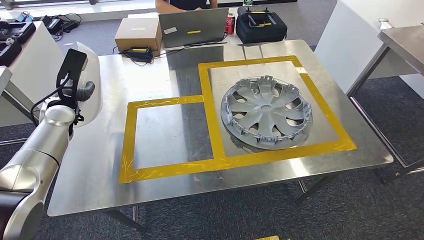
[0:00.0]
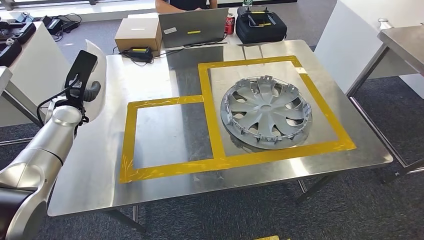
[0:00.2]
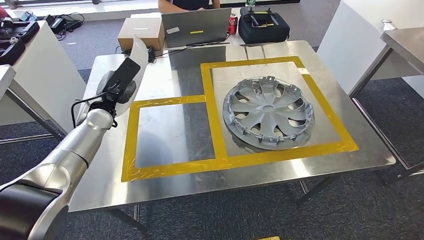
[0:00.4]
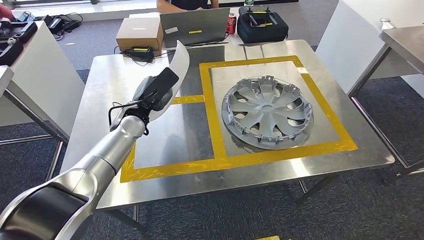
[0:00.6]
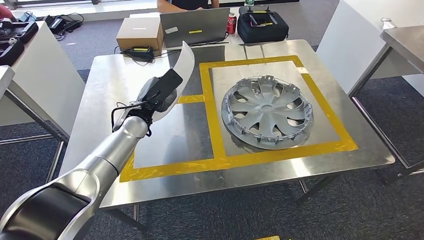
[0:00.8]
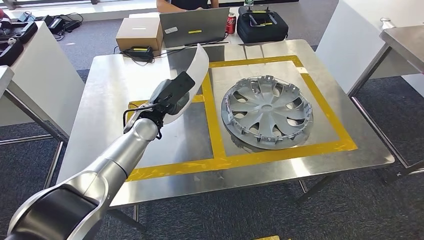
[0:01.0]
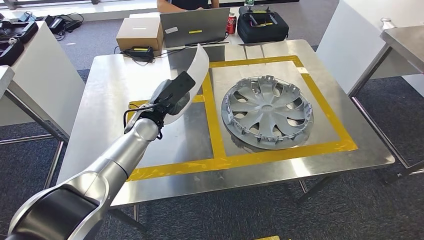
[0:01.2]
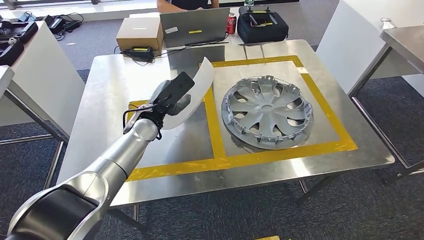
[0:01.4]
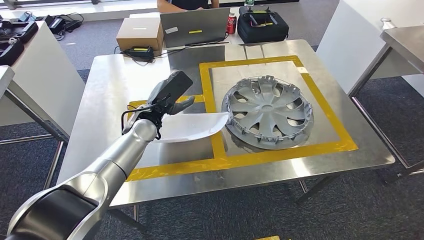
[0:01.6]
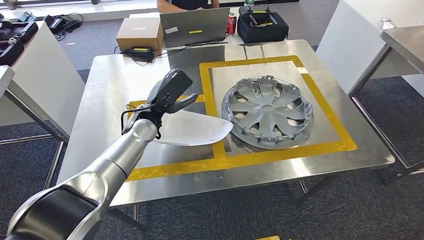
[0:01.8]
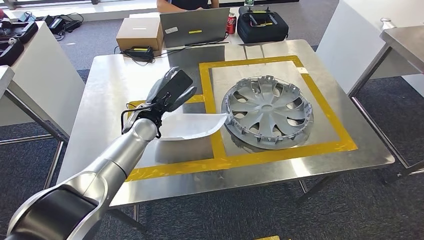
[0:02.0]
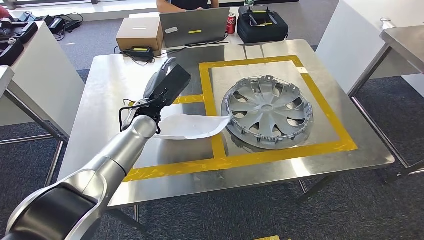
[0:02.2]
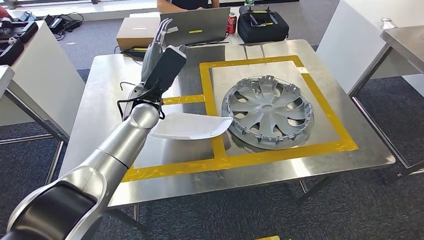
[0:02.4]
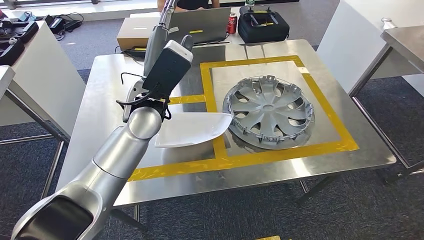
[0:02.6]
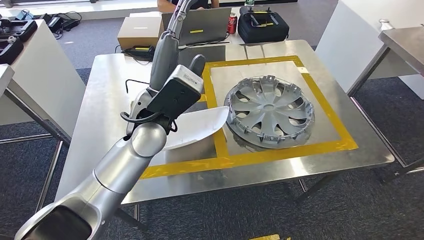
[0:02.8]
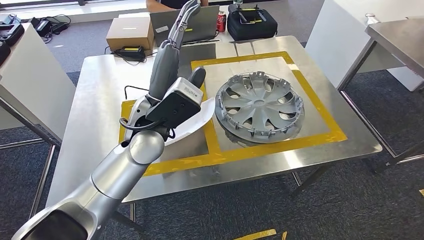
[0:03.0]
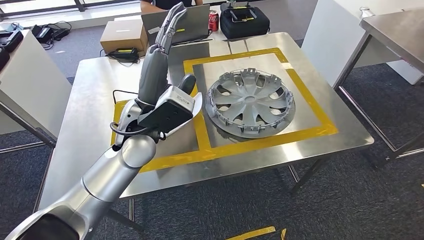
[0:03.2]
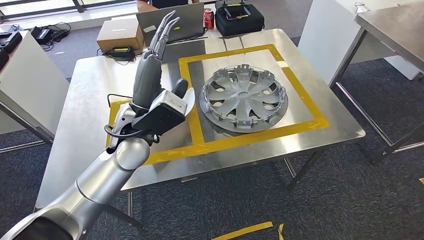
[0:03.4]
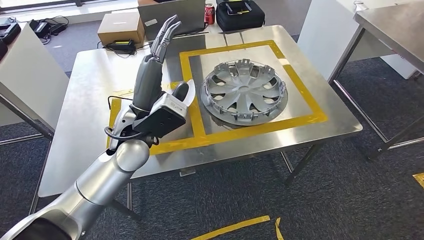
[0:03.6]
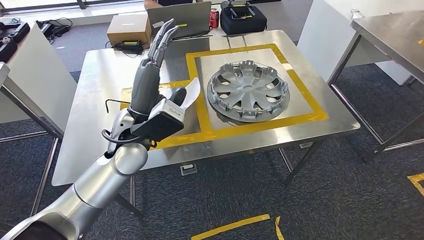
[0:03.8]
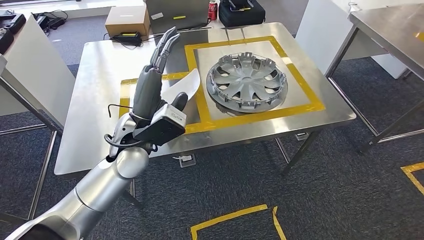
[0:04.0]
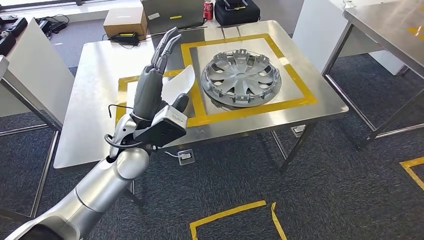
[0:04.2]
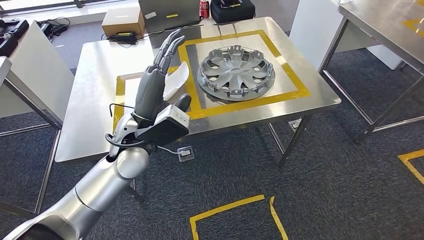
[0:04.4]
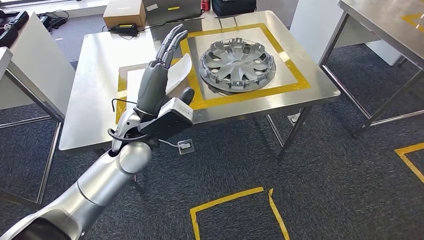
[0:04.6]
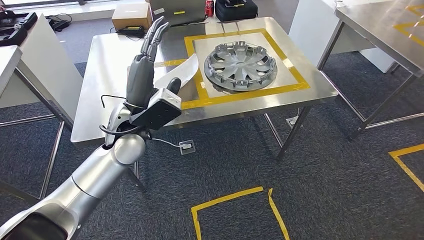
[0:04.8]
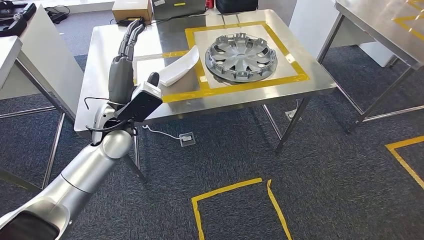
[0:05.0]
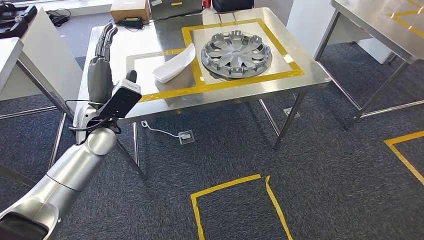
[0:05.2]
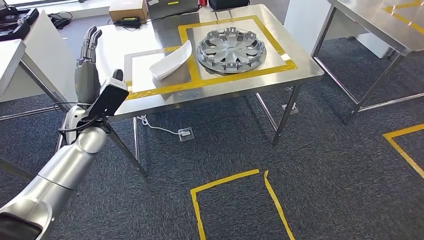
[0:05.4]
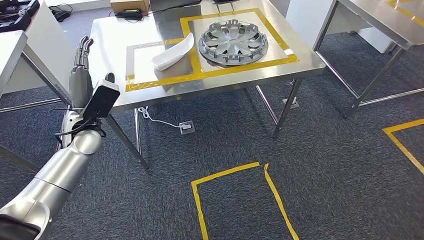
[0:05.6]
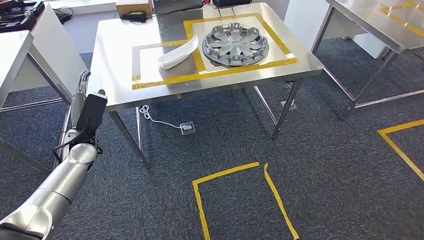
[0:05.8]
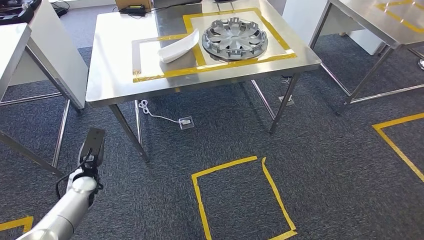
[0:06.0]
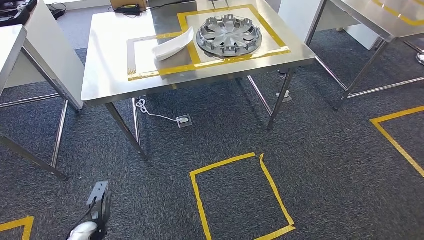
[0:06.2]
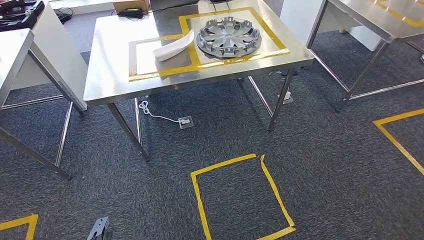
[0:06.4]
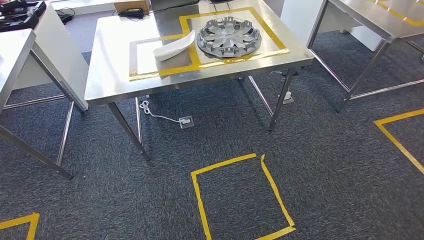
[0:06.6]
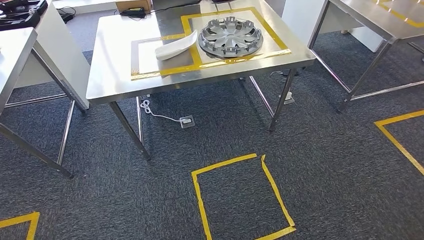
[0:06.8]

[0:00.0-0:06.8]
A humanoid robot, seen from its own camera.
Step, 0:00.0 to 0:03.6: Insert the large material into the corresponding slot on the workbench.
Step, 0:03.8 to 0:06.8: Move to the initial position of the shelf.
0:01.4 to 0:02.8: The left hand is displaced upward and to the right by roughly 15 cm.
